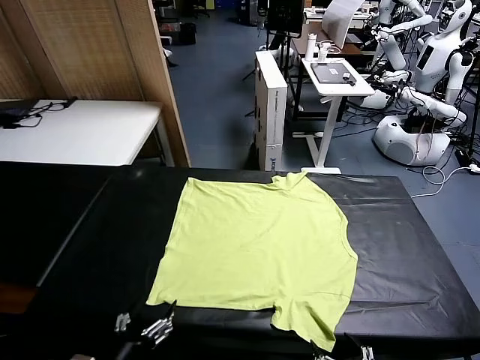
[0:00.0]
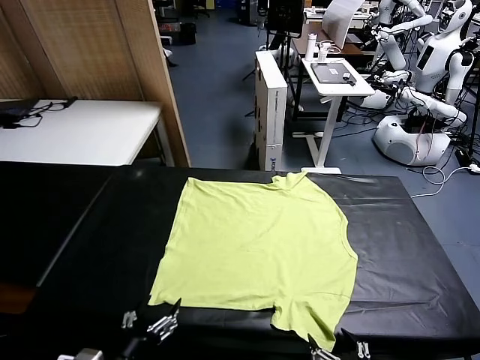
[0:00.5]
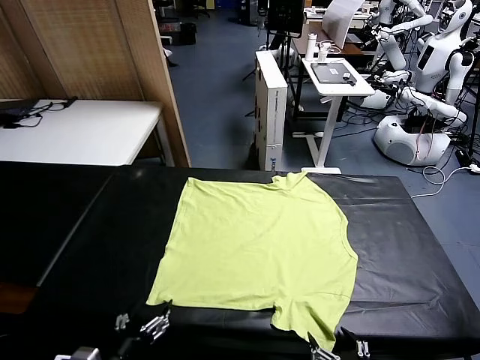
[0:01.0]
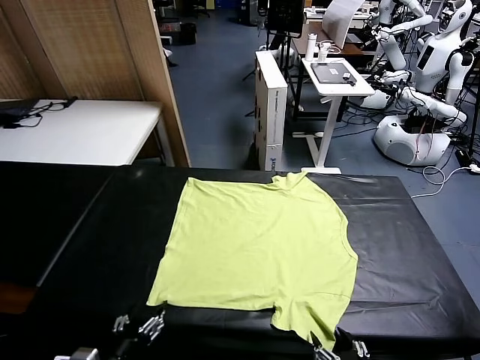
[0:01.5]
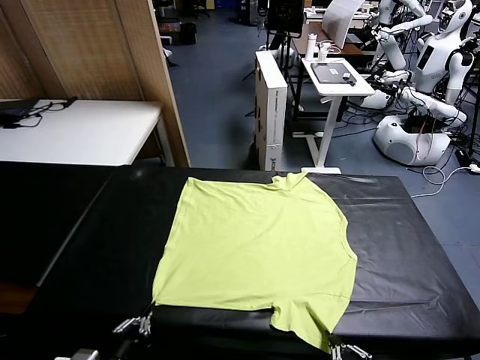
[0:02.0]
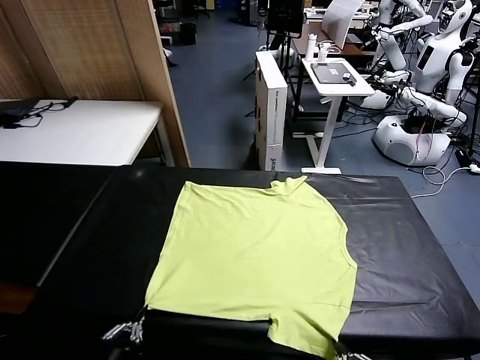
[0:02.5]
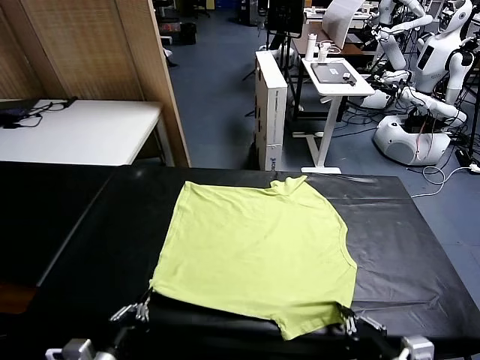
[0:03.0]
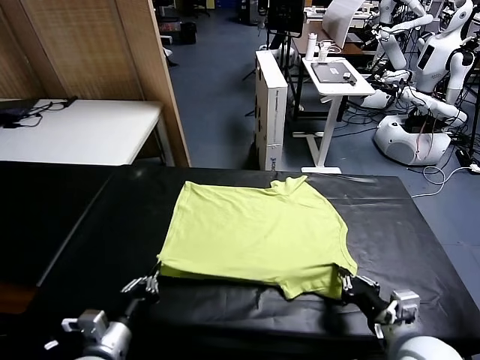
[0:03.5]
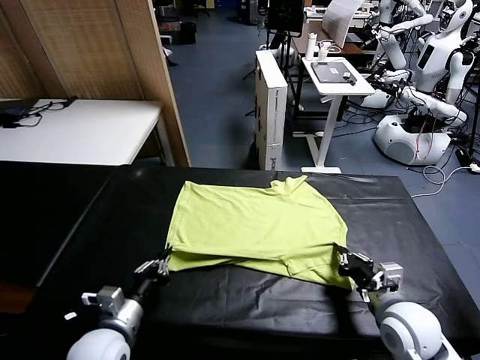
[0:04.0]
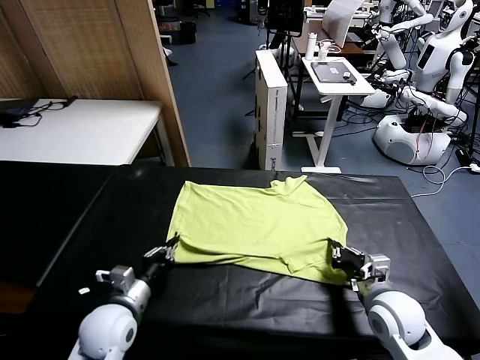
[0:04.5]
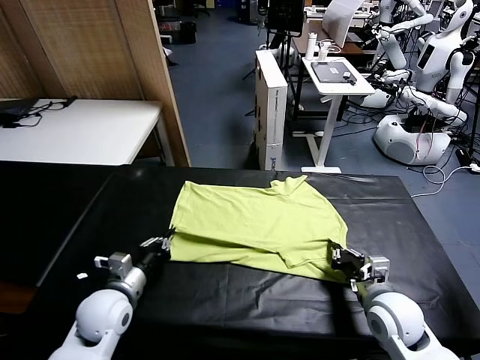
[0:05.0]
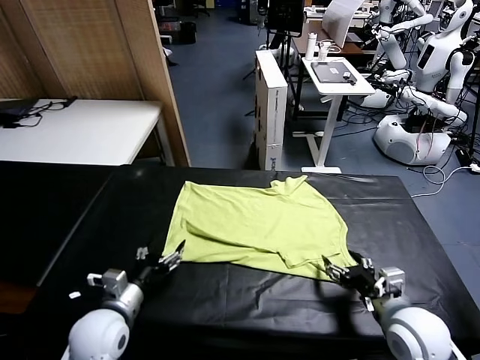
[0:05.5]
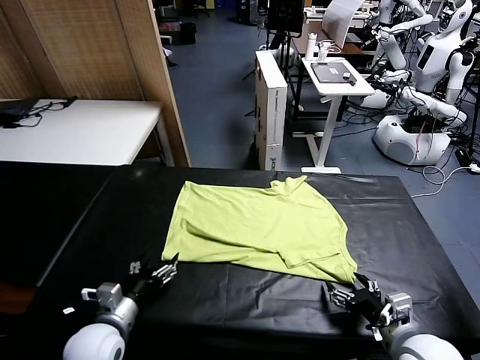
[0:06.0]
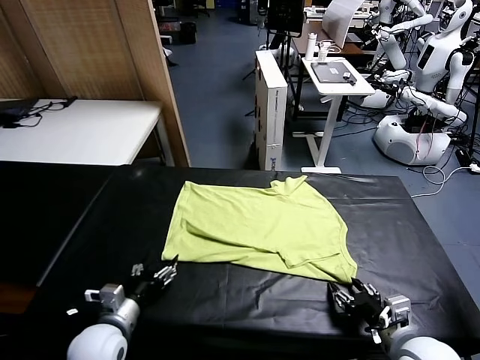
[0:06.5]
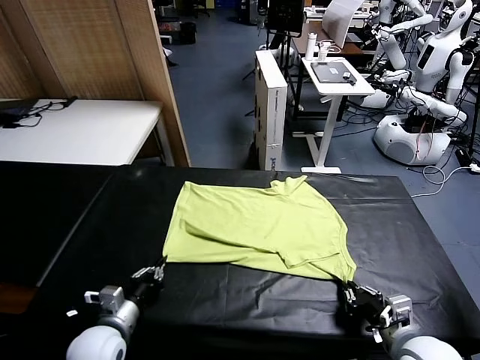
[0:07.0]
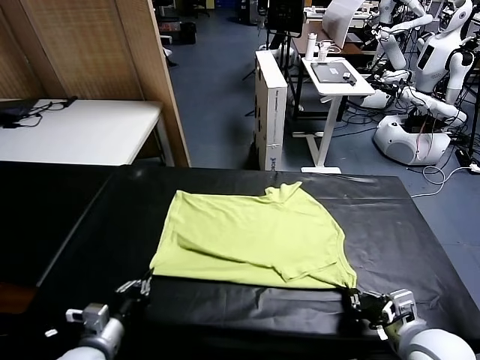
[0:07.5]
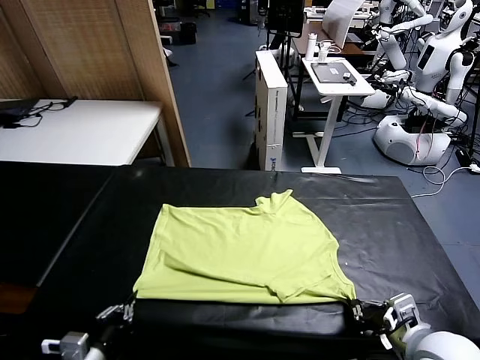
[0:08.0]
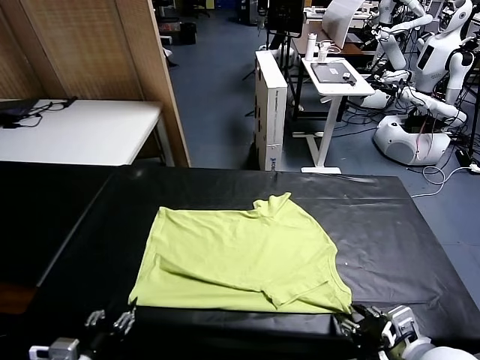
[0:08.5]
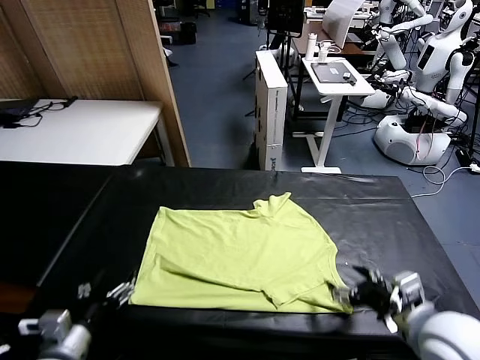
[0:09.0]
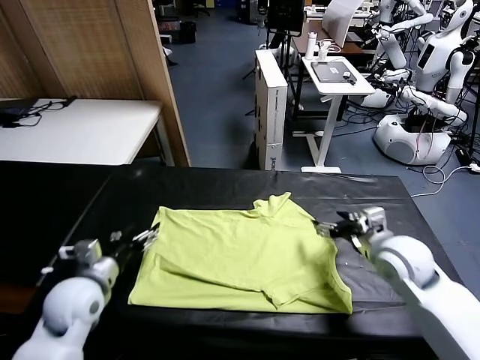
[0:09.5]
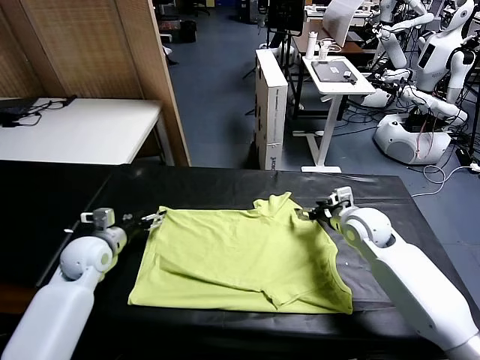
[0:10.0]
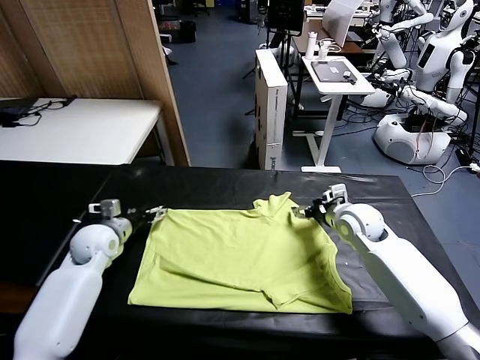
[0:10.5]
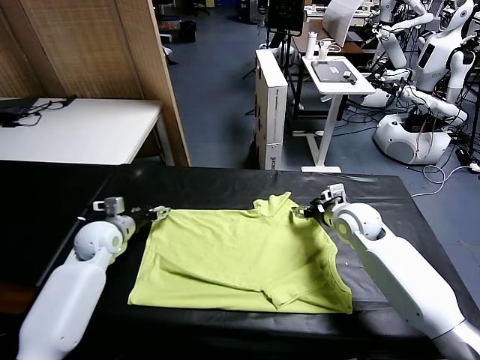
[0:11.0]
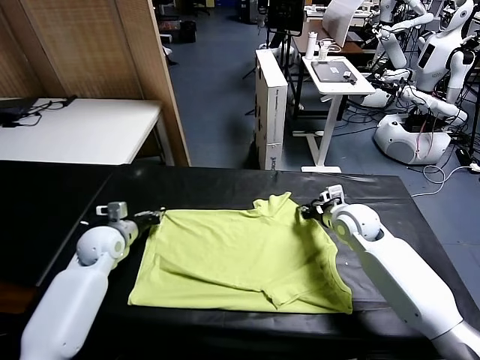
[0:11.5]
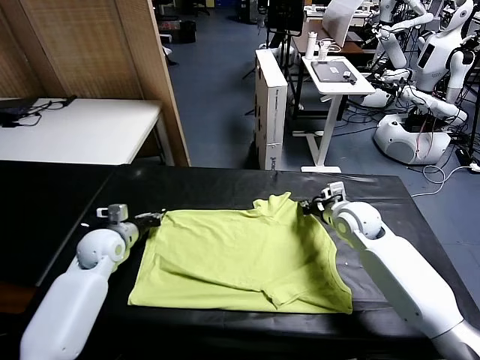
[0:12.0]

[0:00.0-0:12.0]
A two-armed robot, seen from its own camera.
Task of the whole recording: fold and organize the clothes.
Step, 0:00.0 to 0:02.0: use both grippers simultaneously to clamp the lower edge of the clothing fabric.
Step, 0:02.5 to 0:05.5: use both grippers to drag the lower edge of the fabric forward and fold it over the upper edge.
Step, 0:06.0 to 0:08.5: Drag the clothes downward with both gripper.
0:02.0 to 0:04.0: The left gripper heads forward, covering some 15 cm; the right gripper travels forward by about 20 cm.
0:04.0 to 0:06.0: The right gripper travels backward by about 10 cm, and opens, while the left gripper opens its fingers.
0:06.0 to 0:08.0: The left gripper goes approximately 10 cm backward, and closes its fingers. The right gripper goes roughly 5 cm upward, and closes up.
0:08.0 to 0:10.0: Both grippers move forward, roughly 30 cm. The left gripper opens up. The right gripper opens up.
0:10.0 to 0:12.0: The right gripper closes its fingers; the left gripper closes its fingers.

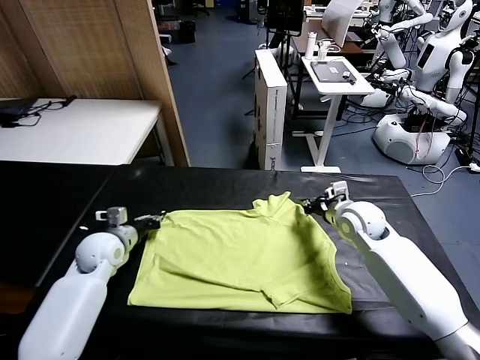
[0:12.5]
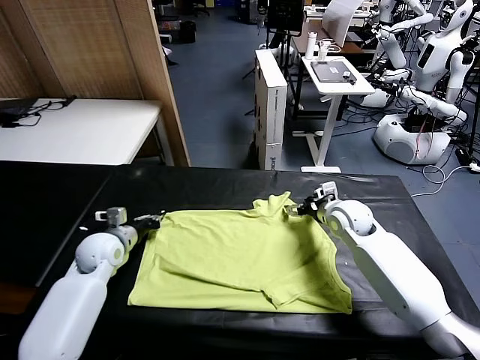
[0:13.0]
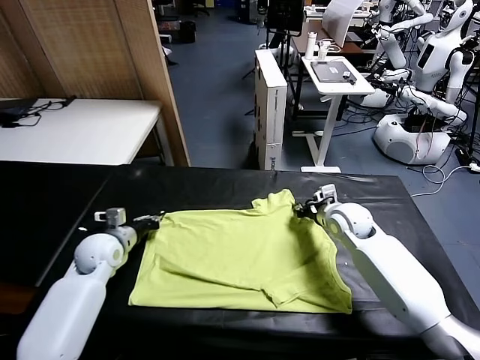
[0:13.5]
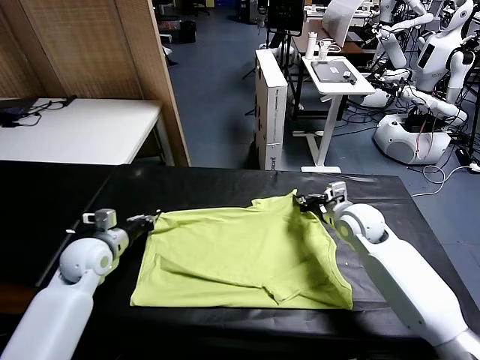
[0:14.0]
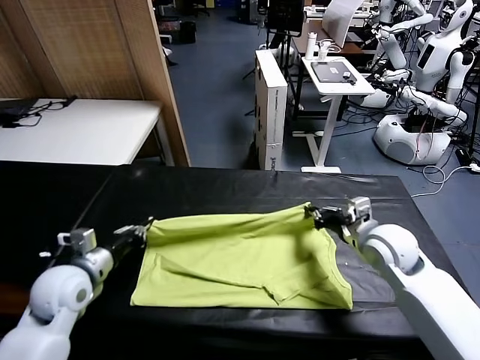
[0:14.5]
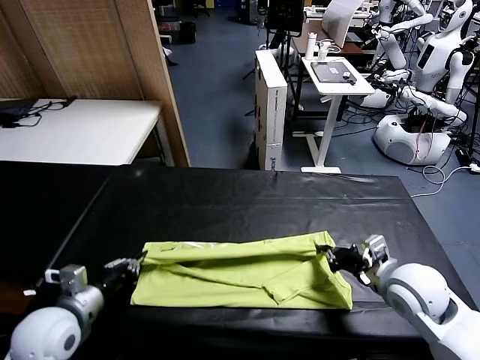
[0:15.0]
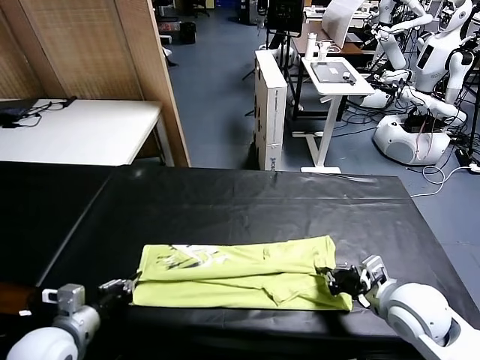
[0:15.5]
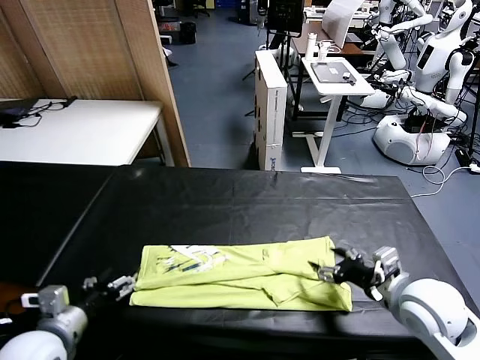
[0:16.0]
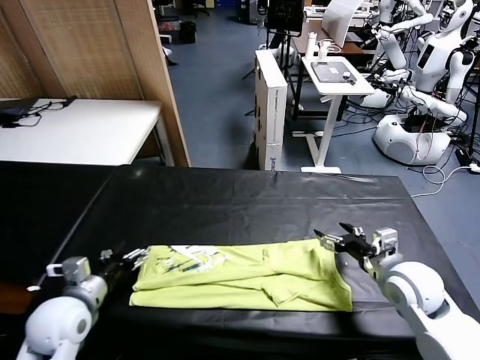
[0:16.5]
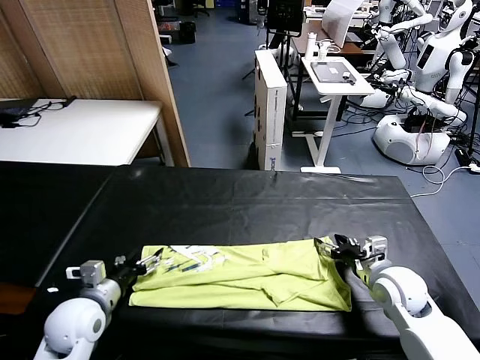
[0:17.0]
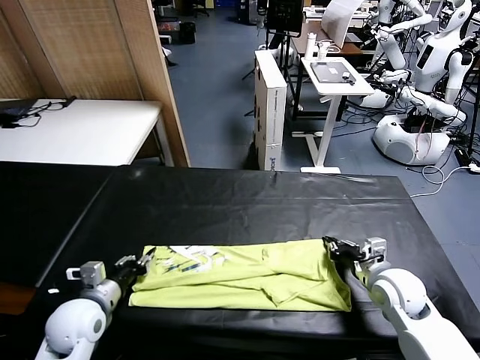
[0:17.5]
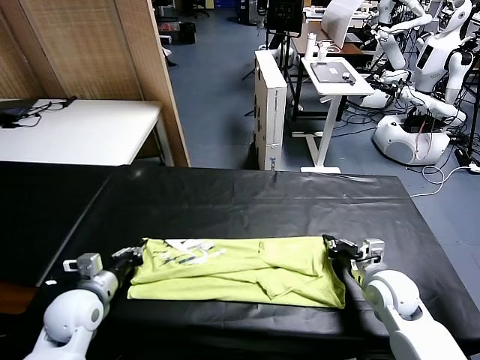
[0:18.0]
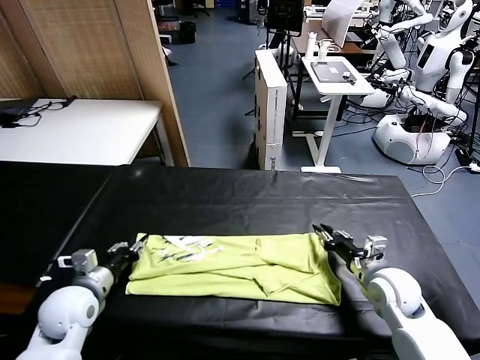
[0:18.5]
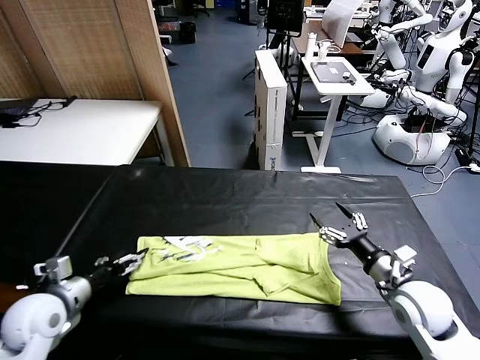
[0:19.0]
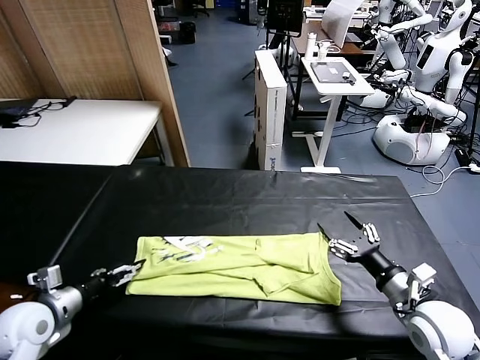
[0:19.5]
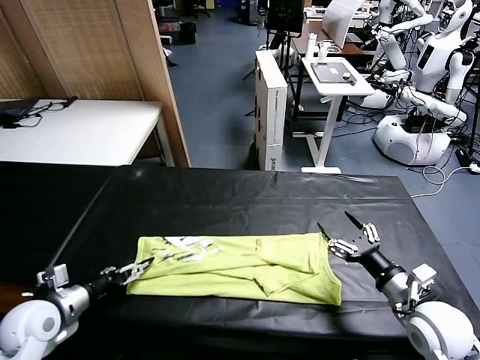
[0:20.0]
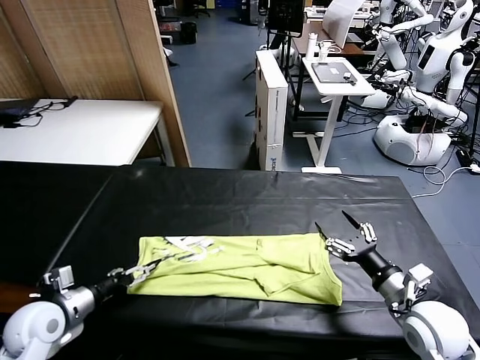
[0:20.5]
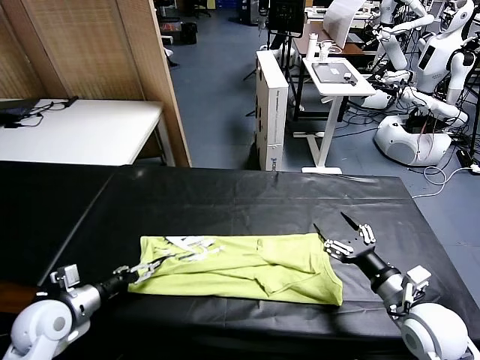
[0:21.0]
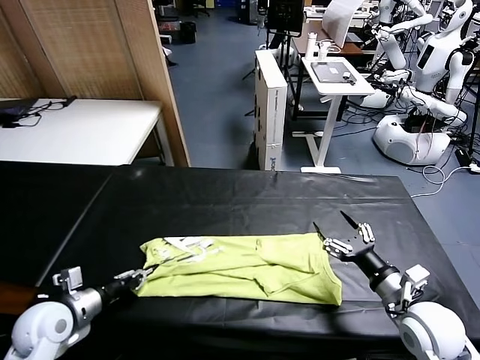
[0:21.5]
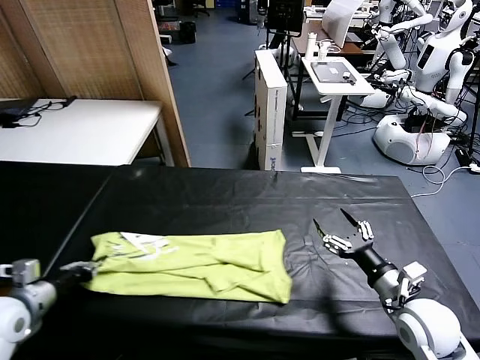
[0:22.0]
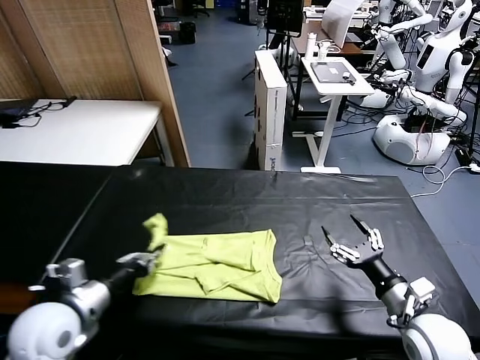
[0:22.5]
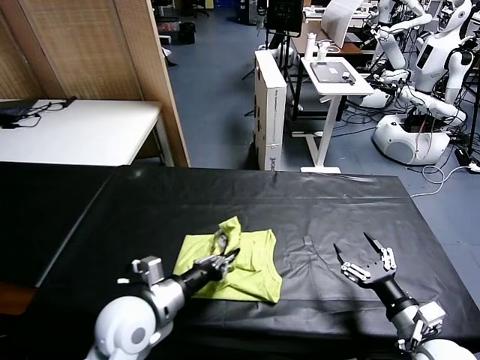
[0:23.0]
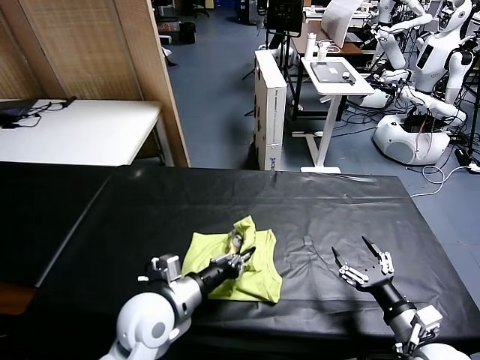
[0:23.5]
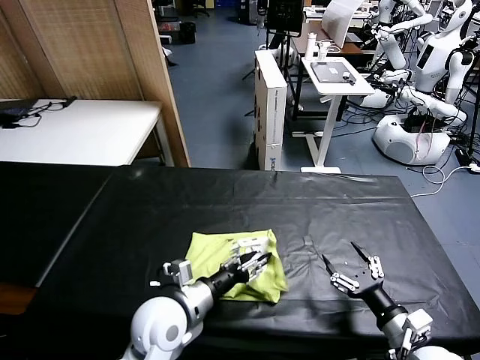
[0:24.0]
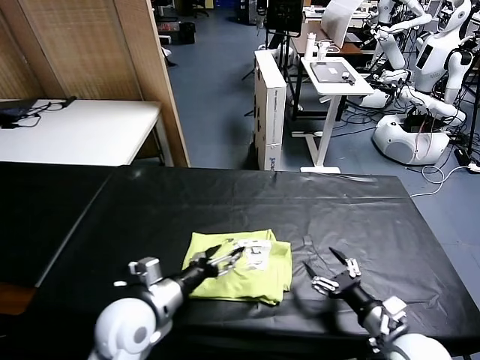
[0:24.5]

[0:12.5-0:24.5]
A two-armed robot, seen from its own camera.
Task of the whole recording: fold and organize the clothes.
Step, 0:14.0 to 0:15.5: use both grippers to drag the upper edge of the fabric backward and fold it over the lower edge.
Step, 0:16.5 to 0:21.5: use the left gripper to clamp the left edge of the fabric.
Step, 0:22.0 to 0:24.0: use the left gripper to drag the left edge of the fabric to the left and folds it over the right edge.
0:12.5 to 0:14.5: The left gripper moves backward and upward, about 15 cm. Meanwhile the right gripper goes approximately 15 cm backward, and closes up.
0:14.5 to 0:16.5: The left gripper goes backward and returns, about 10 cm each way, and opens its fingers, while the right gripper travels downward by roughly 5 cm, and opens its fingers.
0:16.5 to 0:18.5: The left gripper closes and opens again; the right gripper closes and opens again.
0:18.5 to 0:20.5: The right gripper moves backward, some 5 cm.
0:20.5 to 0:22.5: The left gripper heads to the right and upward, covering approximately 15 cm, and closes up.
0:22.5 to 0:24.5: The left gripper travels to the right by approximately 5 cm, and opens up; the right gripper moves to the left, some 5 cm.

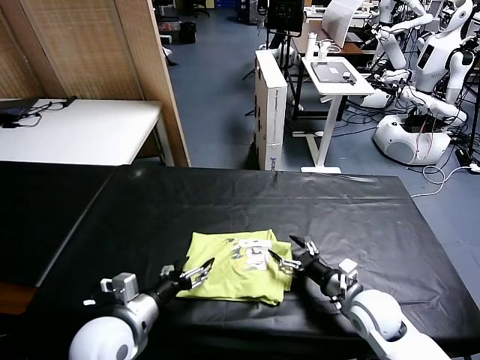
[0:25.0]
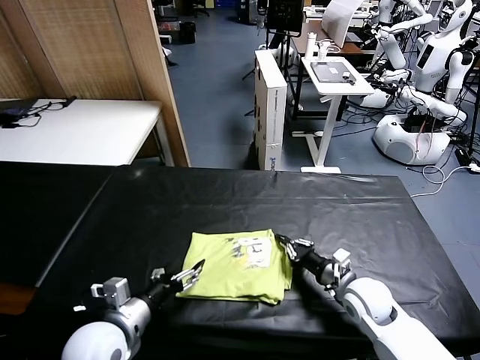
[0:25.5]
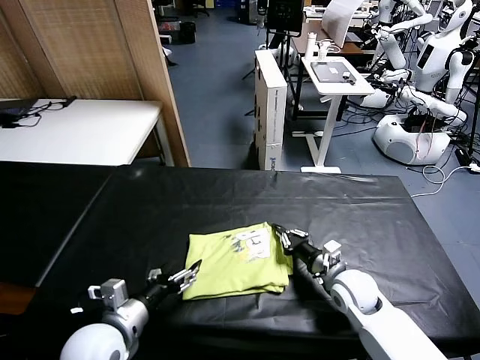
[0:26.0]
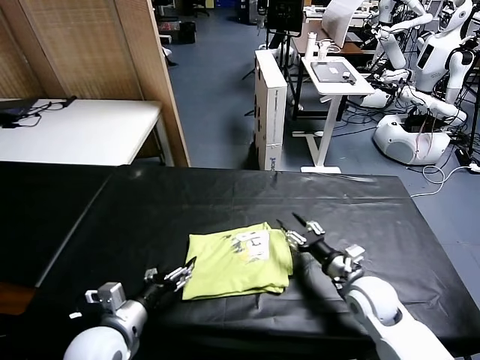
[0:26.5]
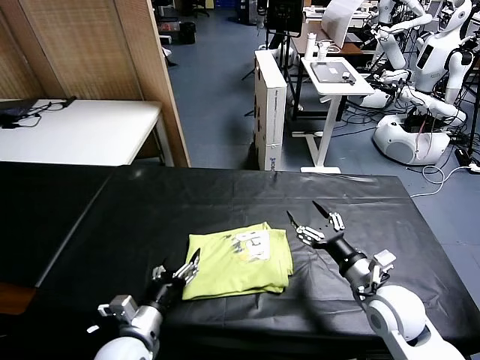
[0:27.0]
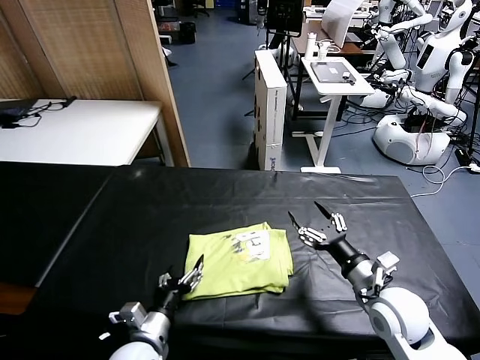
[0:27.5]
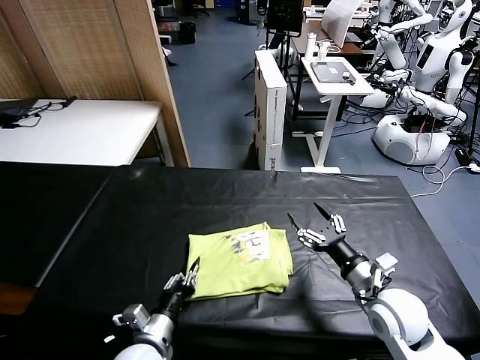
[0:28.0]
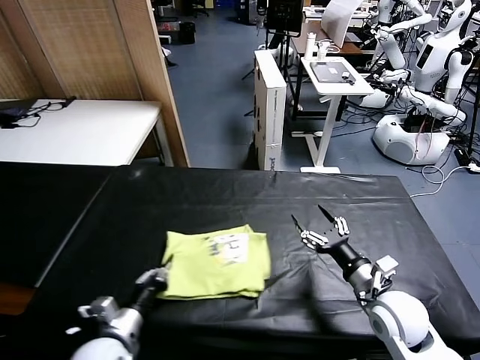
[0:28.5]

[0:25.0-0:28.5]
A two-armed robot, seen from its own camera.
Task of the whole recording: fold and organize the clothes.
0:25.0 to 0:27.0: The right gripper travels upward by approximately 5 cm, and closes and opens again, while the left gripper shifts about 5 cm downward.
0:27.0 to 0:28.5: The left gripper goes approximately 10 cm to the left, and closes its fingers.
